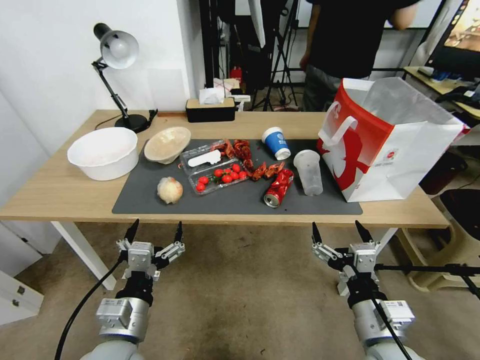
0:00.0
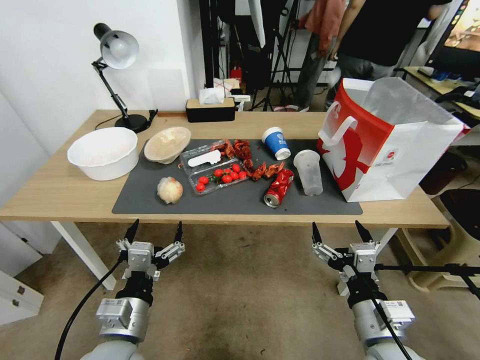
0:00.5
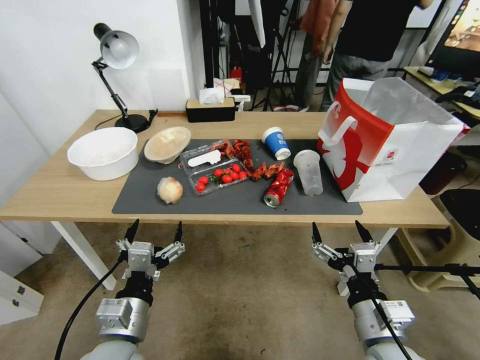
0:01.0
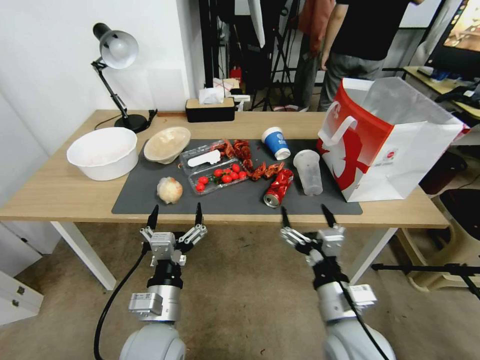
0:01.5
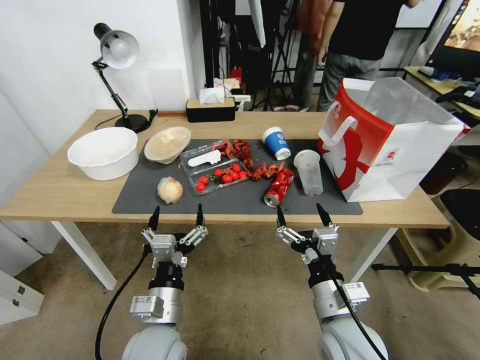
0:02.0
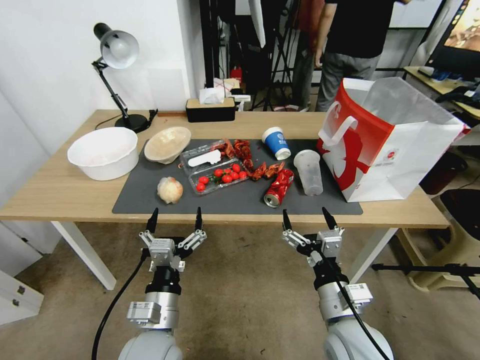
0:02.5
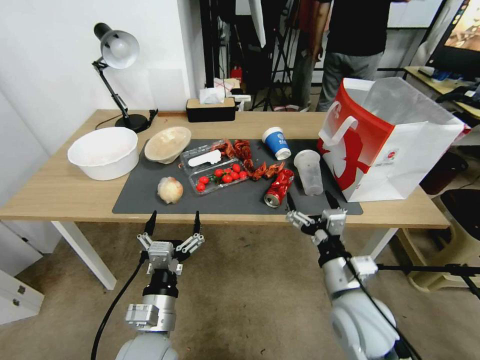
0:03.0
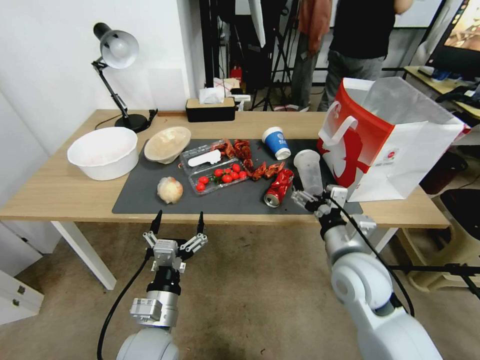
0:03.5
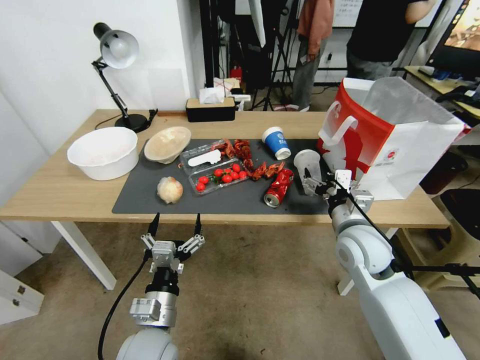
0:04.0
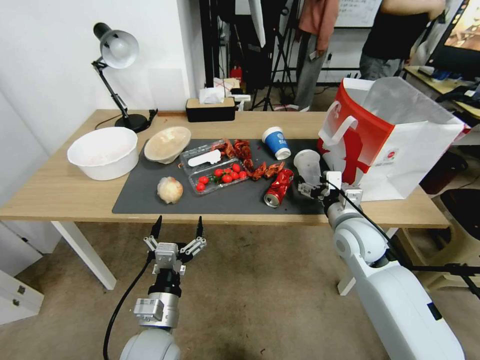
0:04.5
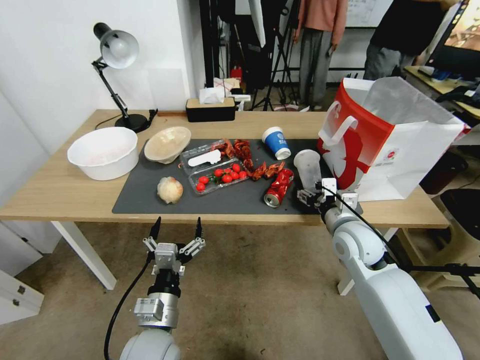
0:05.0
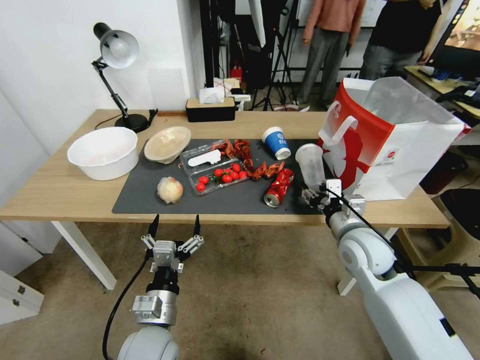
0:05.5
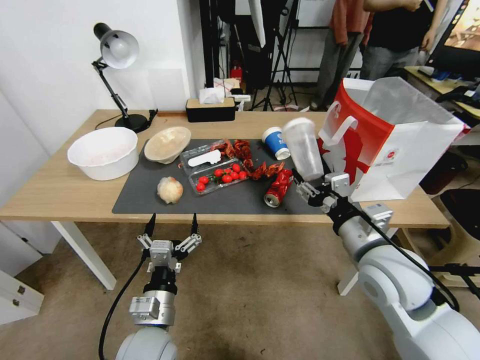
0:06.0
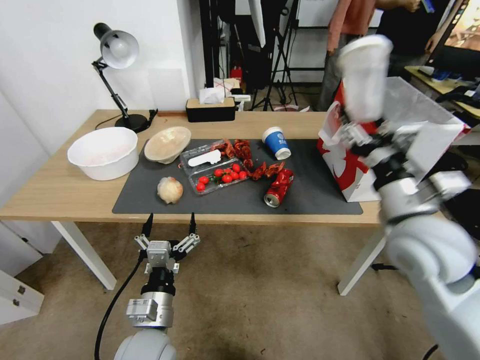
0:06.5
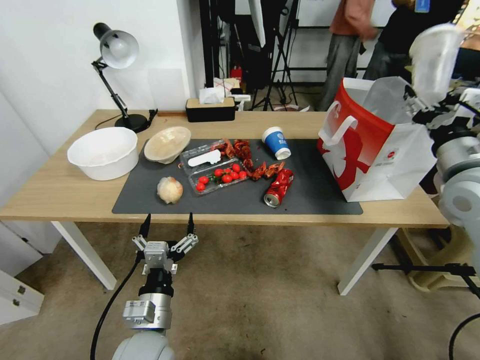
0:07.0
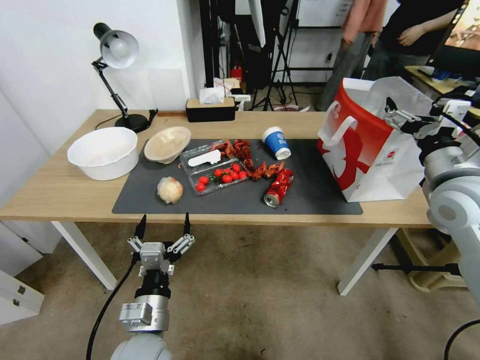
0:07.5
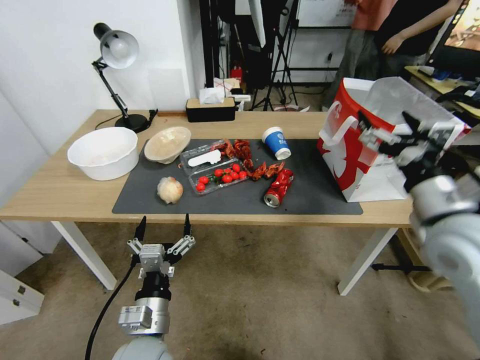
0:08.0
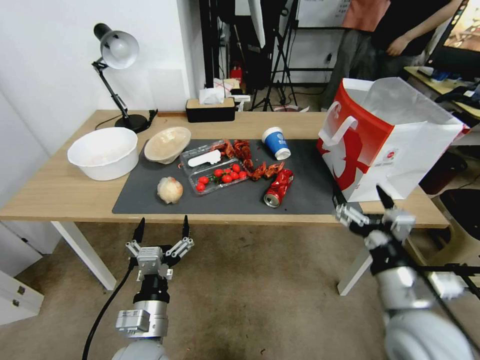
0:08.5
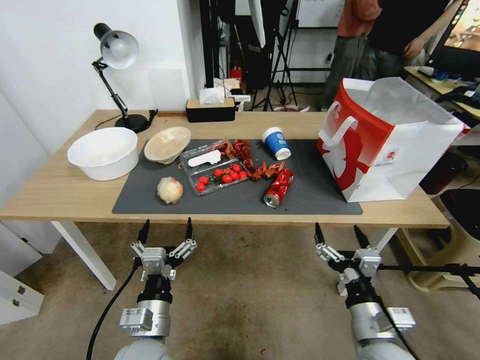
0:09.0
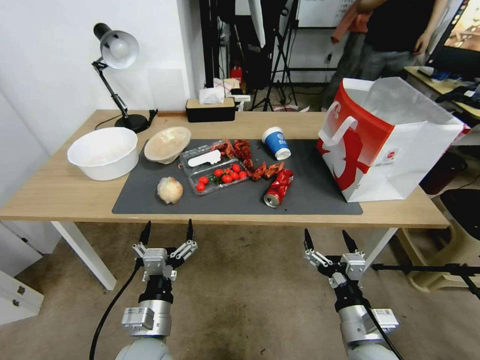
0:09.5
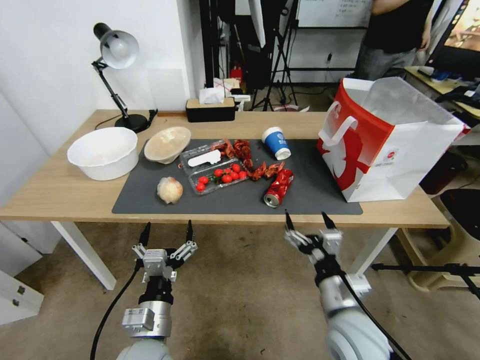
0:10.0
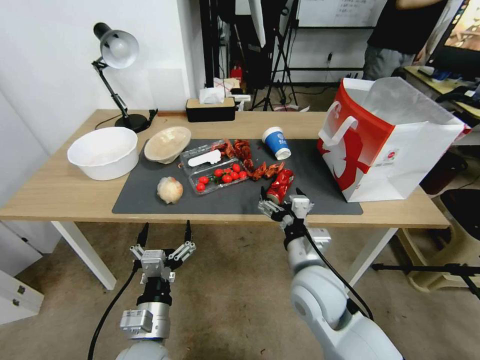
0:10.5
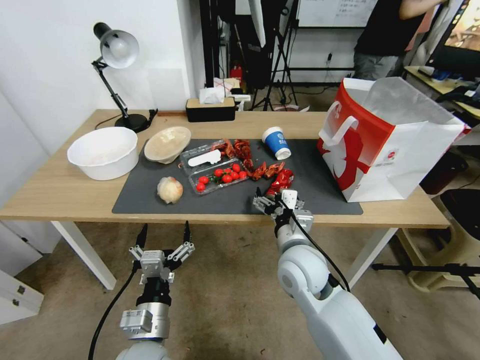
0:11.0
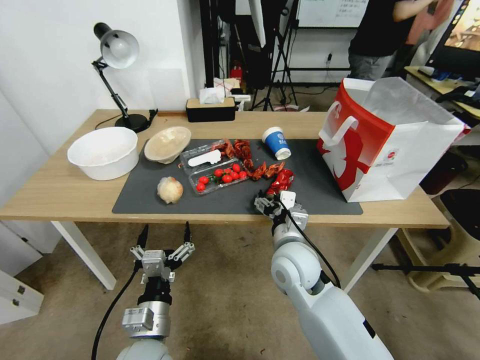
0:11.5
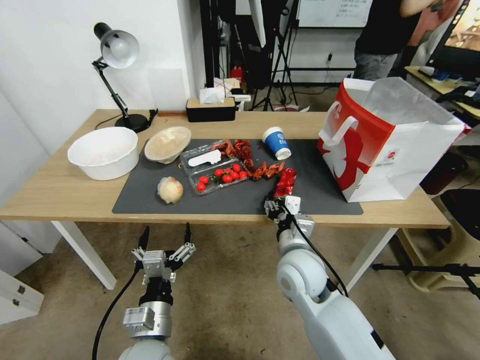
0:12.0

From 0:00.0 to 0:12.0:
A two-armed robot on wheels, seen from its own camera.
From 0:02.0 to 0:04.0: The right gripper heads forward and to the right, covering some 15 cm.
From 0:04.0 to 0:06.0: The right gripper is displaced backward and upward by about 10 cm, and closes up.
From 0:06.0 to 0:08.0: The right gripper shifts some 15 cm to the right and upward, and opens its fingers.
From 0:08.0 to 0:10.0: The right gripper travels downward, to the left and backward by some 30 cm.
From 0:10.0 to 0:12.0: The right gripper travels forward and to the left by about 15 cm, and closes its fingers.

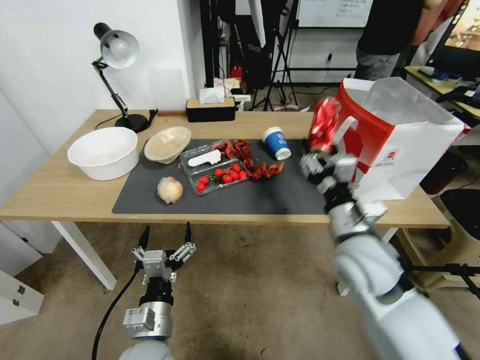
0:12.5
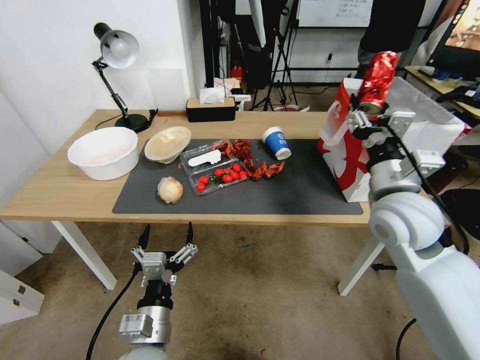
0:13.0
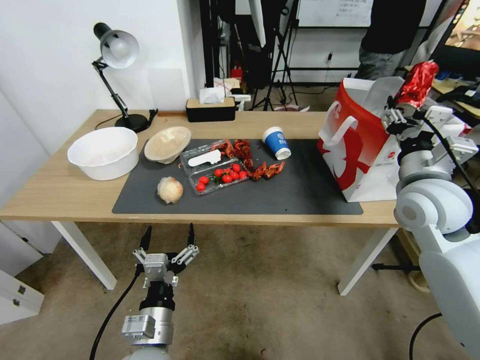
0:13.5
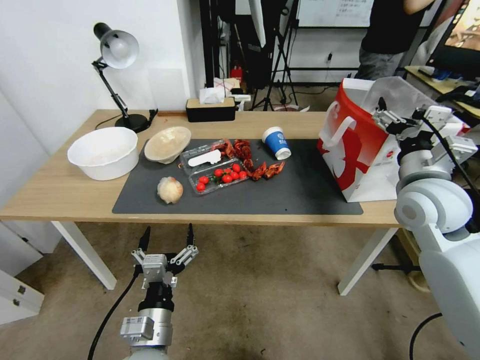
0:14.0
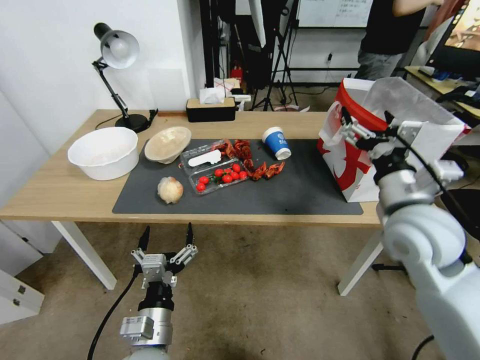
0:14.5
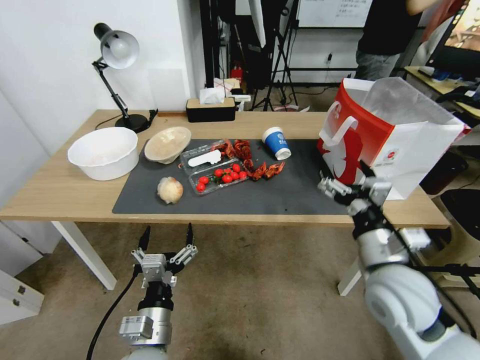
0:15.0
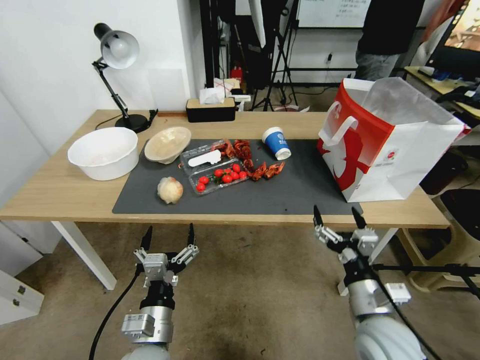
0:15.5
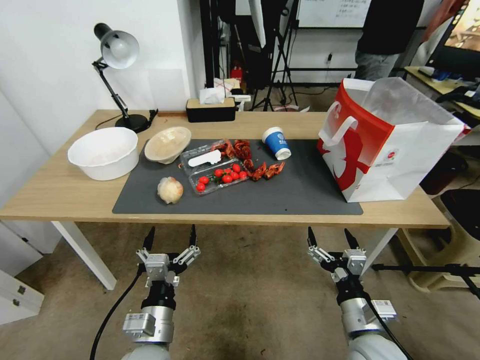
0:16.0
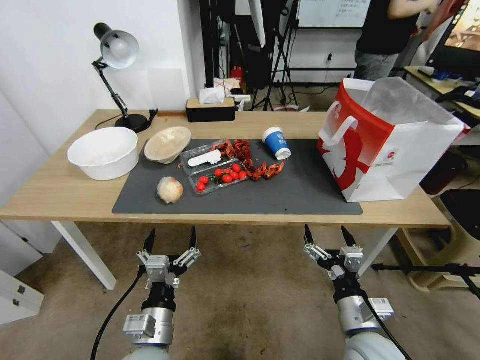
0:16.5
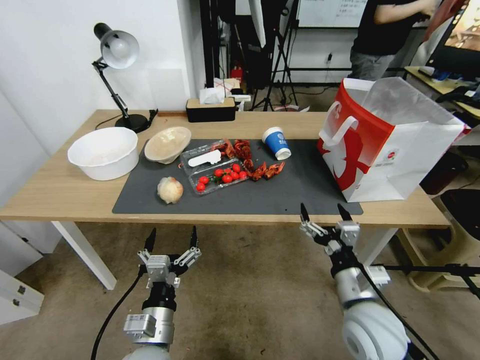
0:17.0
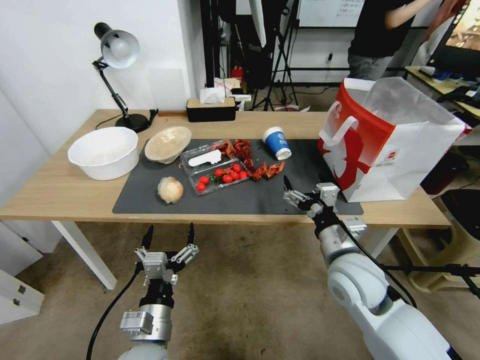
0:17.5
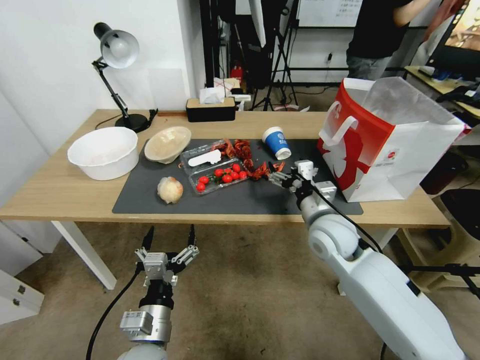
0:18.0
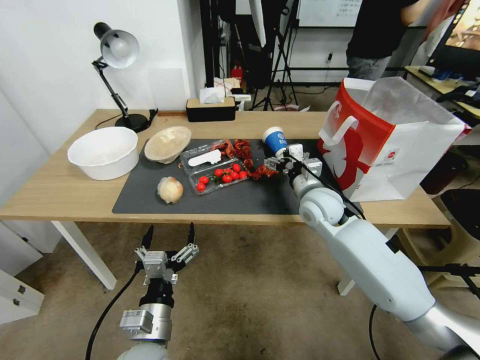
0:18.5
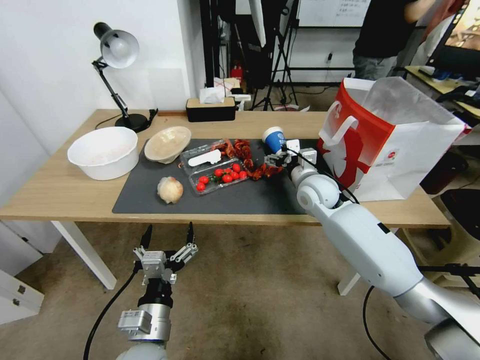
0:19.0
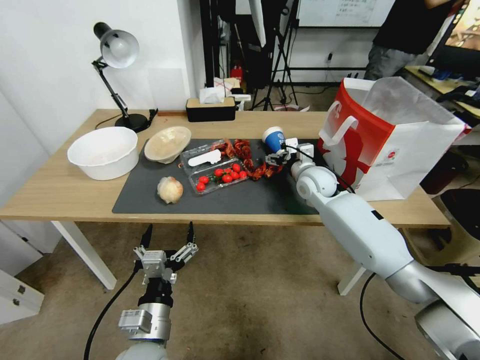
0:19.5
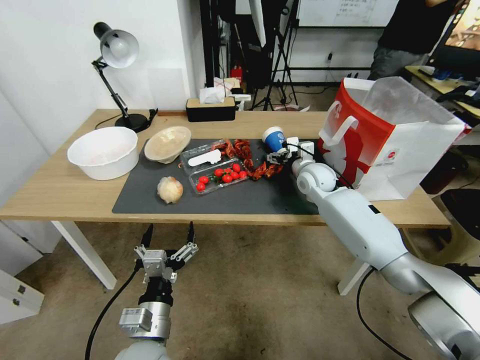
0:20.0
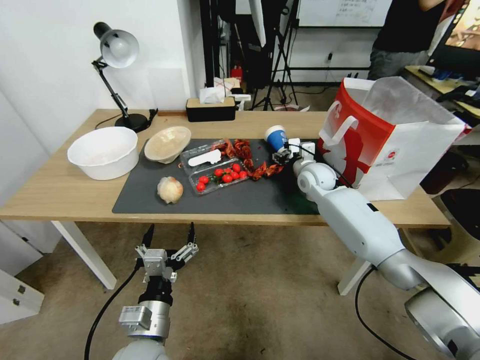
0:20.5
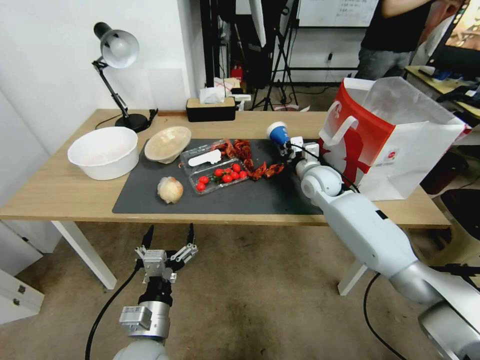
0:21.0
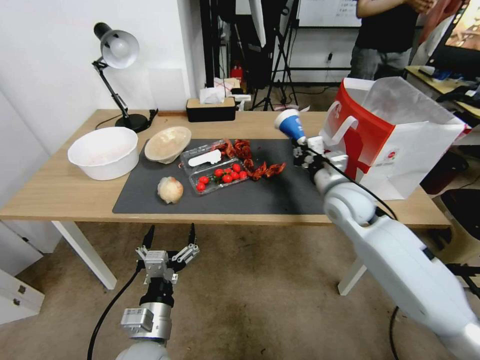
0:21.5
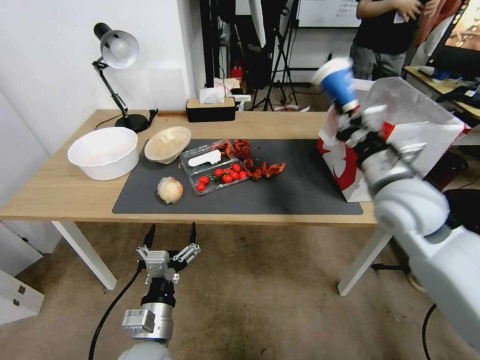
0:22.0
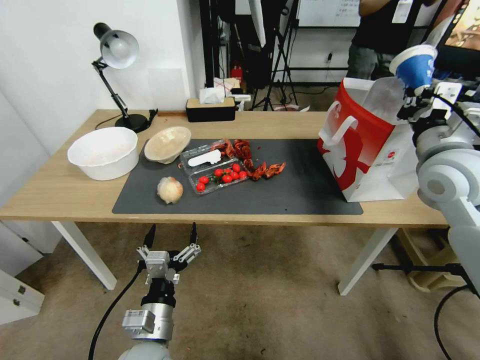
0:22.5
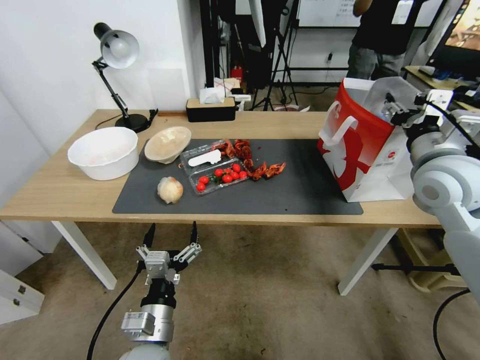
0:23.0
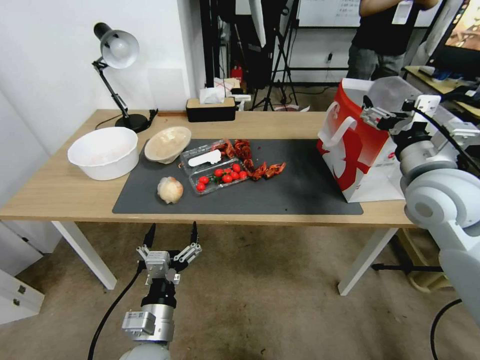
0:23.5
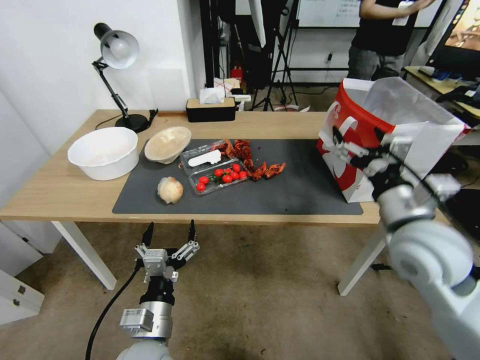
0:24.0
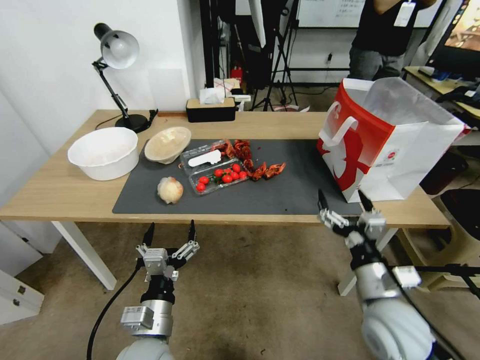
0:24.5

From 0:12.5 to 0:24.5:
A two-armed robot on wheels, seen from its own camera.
From 0:12.5 to 0:14.5: The right gripper goes roughly 15 cm to the right, upward and forward, and opens up.
From 0:14.5 to 0:16.5: The right gripper shifts some 30 cm downward and backward.
From 0:16.5 to 0:18.5: The right gripper shifts roughly 25 cm forward.
From 0:18.5 to 0:20.5: The right gripper moves forward, some 10 cm, and closes its fingers.
From 0:20.5 to 0:22.5: The right gripper is displaced upward, backward and to the right by about 30 cm, and closes up.
From 0:22.5 to 0:24.5: The right gripper moves downward and backward, roughly 30 cm, and opens its fingers.

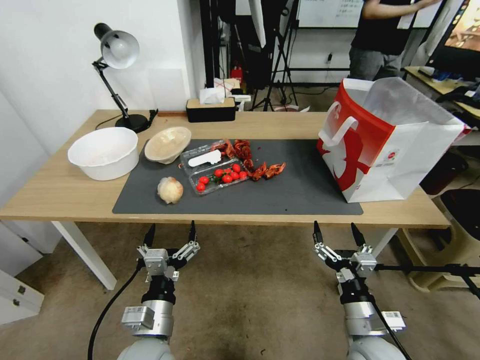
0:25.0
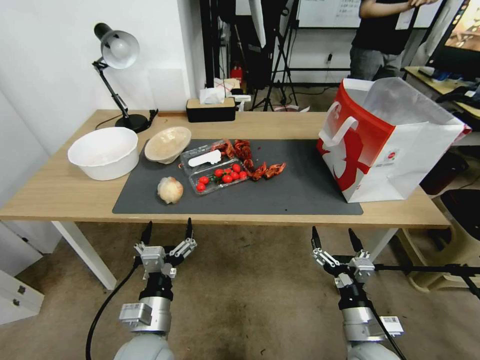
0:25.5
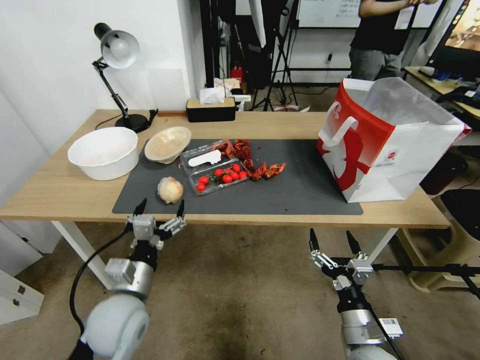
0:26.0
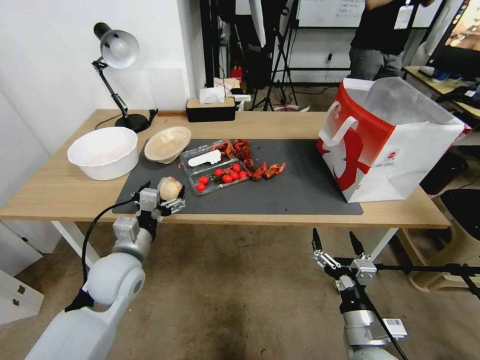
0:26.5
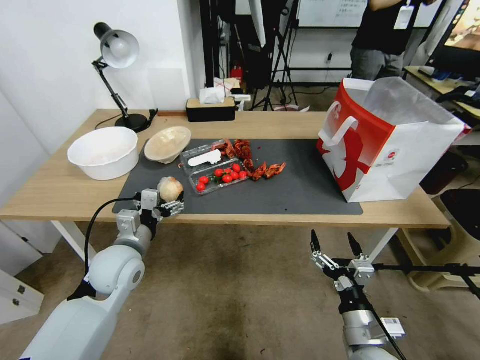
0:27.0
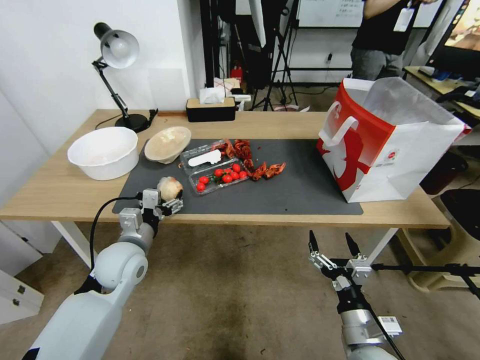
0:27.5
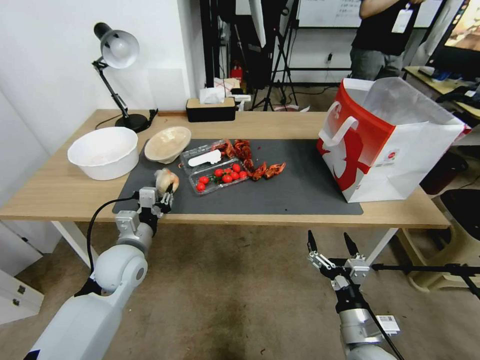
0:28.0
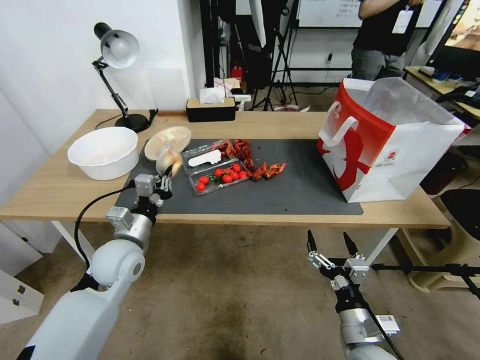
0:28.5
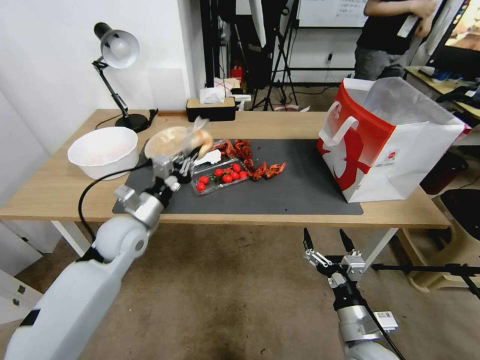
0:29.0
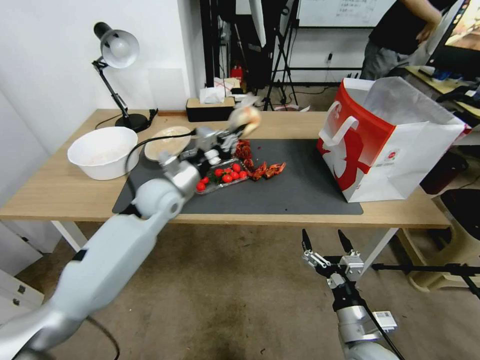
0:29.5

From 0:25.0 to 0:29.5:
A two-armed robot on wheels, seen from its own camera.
From 0:25.0 to 0:27.0: The left gripper heads forward and to the left, covering some 15 cm.
From 0:27.0 to 0:29.5: The left gripper heads forward, to the right and upward, covering about 15 cm, and closes its fingers.
